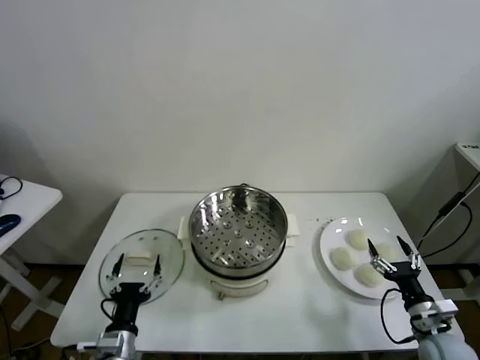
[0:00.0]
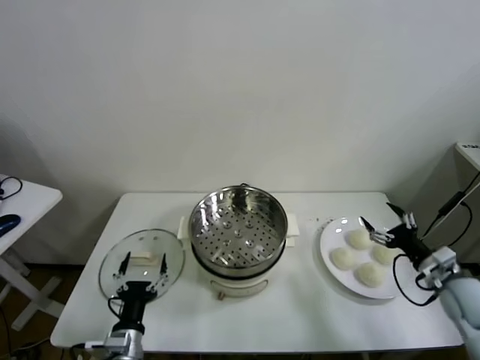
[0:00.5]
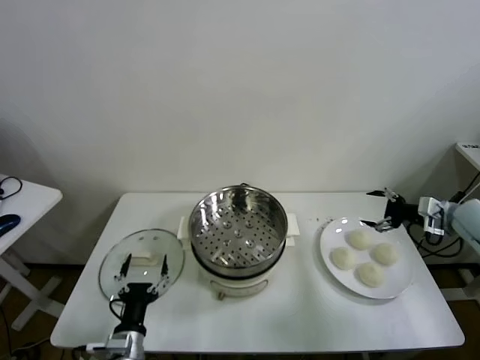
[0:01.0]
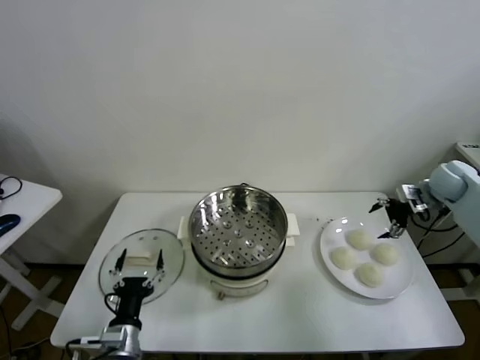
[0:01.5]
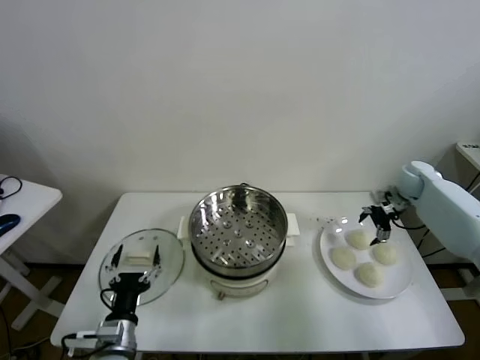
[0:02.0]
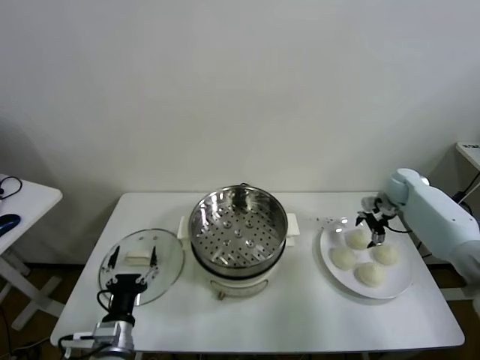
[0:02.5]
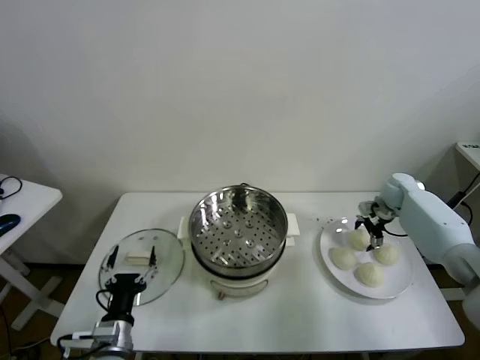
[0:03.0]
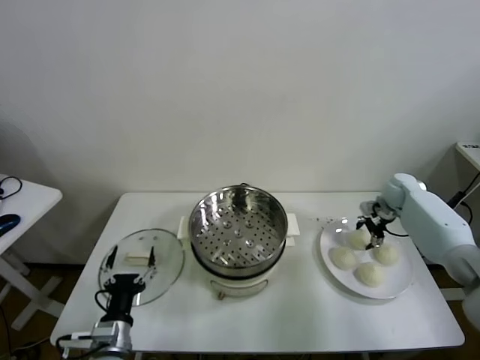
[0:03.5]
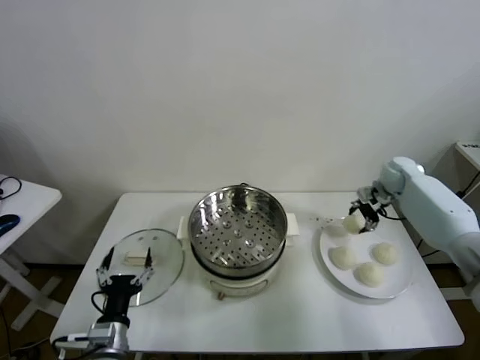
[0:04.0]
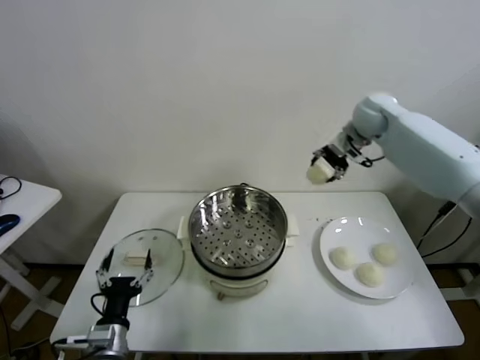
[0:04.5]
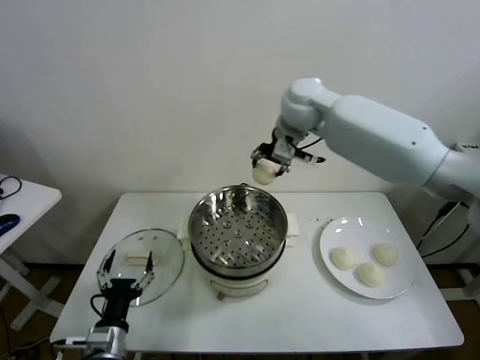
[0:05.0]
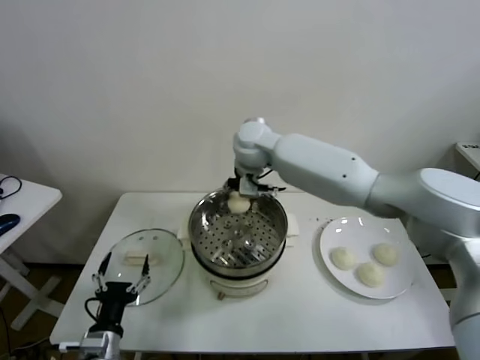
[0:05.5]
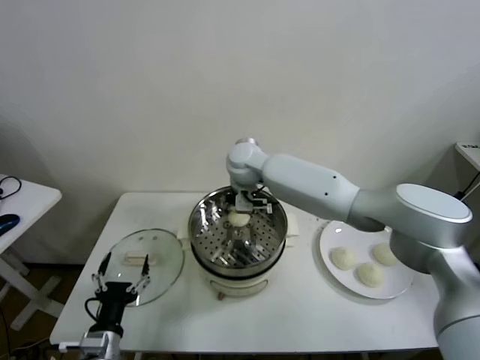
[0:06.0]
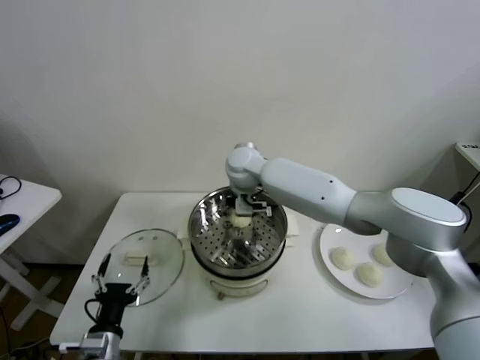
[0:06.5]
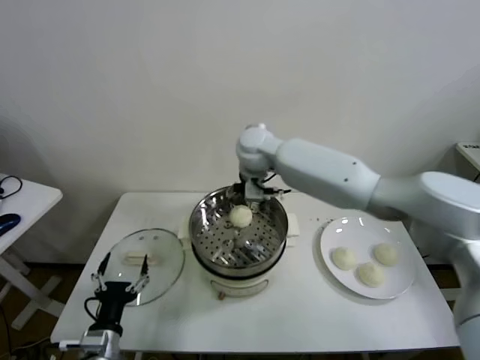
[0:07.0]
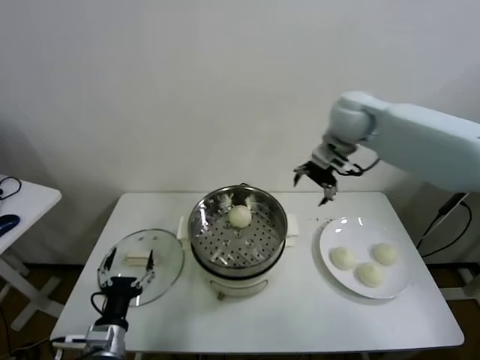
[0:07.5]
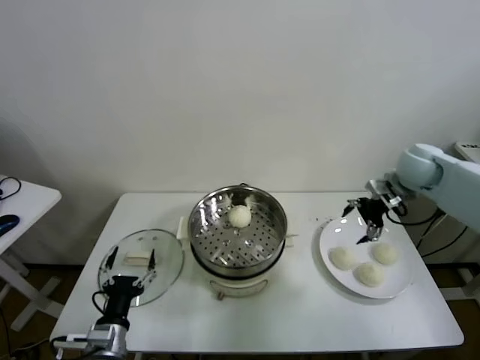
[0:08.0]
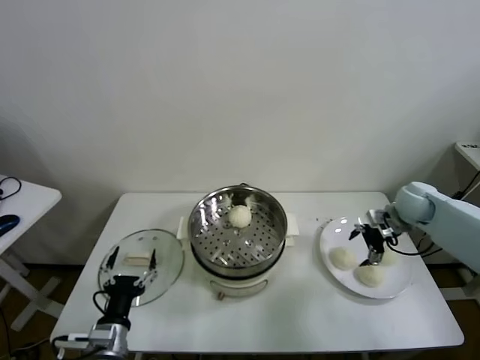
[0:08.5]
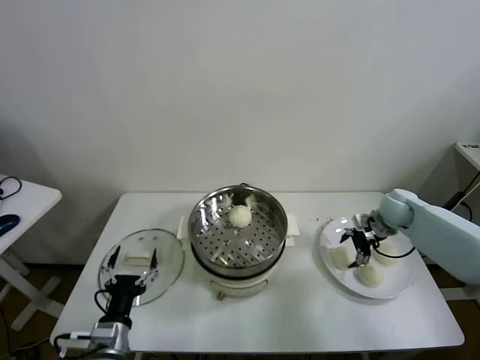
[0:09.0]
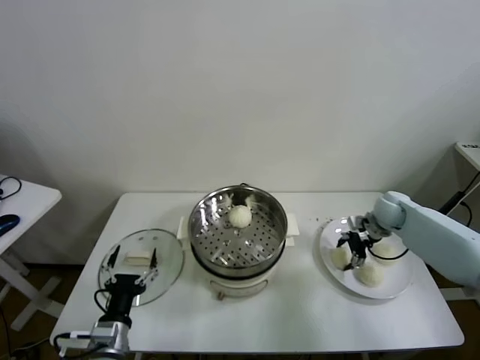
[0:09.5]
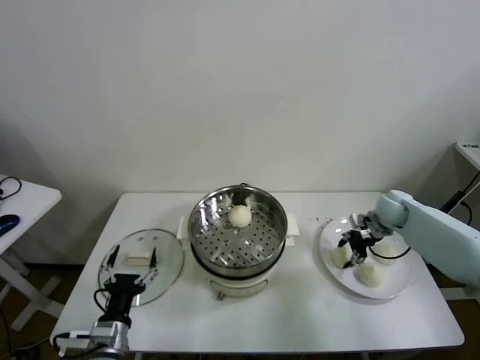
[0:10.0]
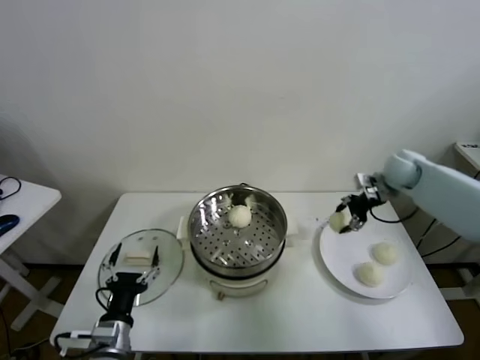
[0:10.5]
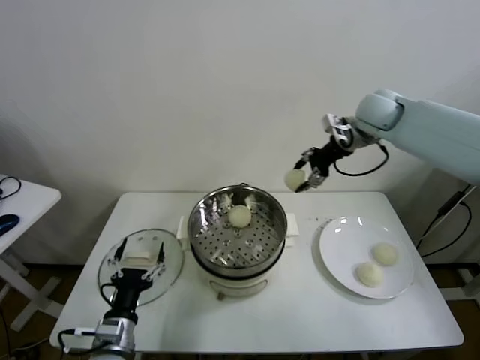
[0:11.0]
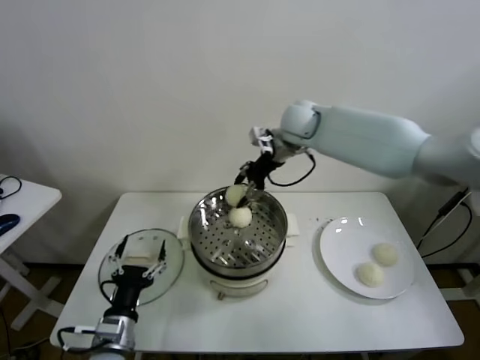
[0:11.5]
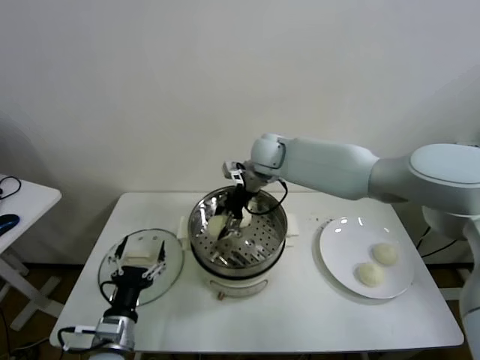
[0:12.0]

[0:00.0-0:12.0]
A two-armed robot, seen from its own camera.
Task of the whole recording: take steamed baozi put them in steamer.
Step, 0:00.0 to 0:03.5: Grasp the baozi in the plate with right gripper.
Step, 0:04.0 to 0:06.5: Place the baozi on the steamer with right gripper.
Step, 0:07.0 to 0:09.0: Grasp the baozi in the plate with right gripper.
0:02.0 to 0:04.0: The right gripper ends up roughly 5 cm from where it was, and closes up.
0:04.0 to 0:06.0: The right gripper is displaced to the left by roughly 40 cm.
0:06.0 to 0:08.0: The right gripper shifts some 40 cm to the right, and opens up.
0:08.0 to 0:10.0: The right gripper goes about 15 cm downward, and closes its fingers.
0:10.0 to 0:12.0: The right gripper goes roughly 35 cm to the left.

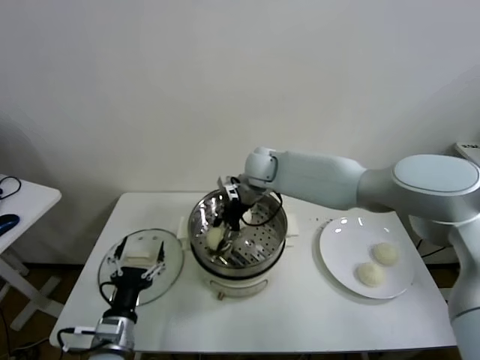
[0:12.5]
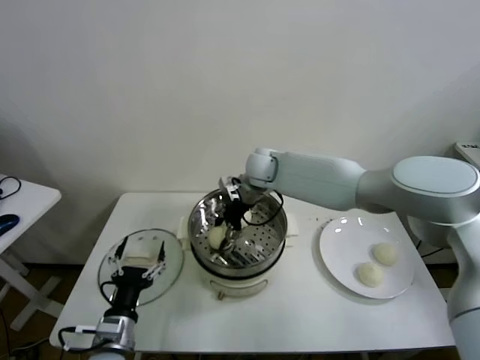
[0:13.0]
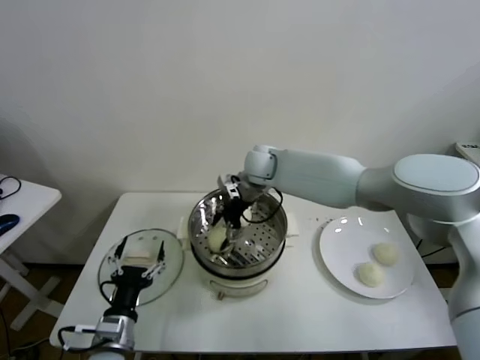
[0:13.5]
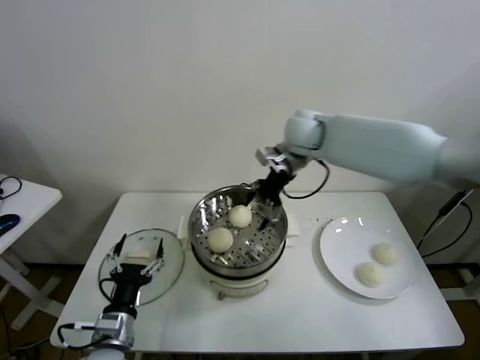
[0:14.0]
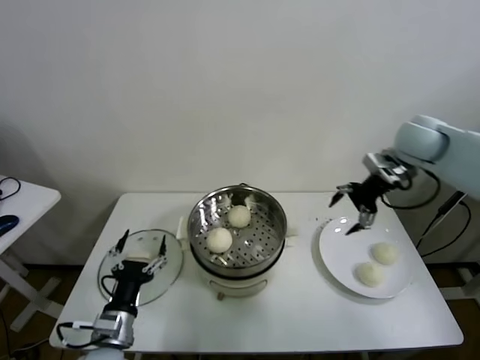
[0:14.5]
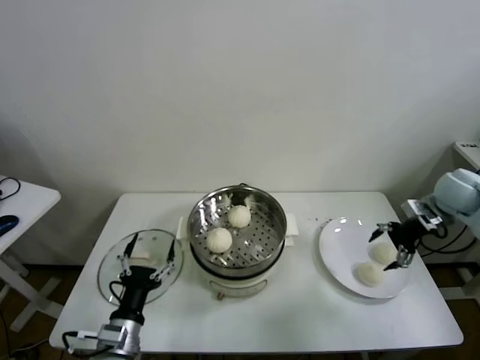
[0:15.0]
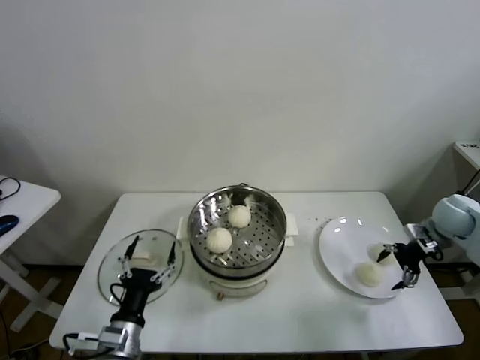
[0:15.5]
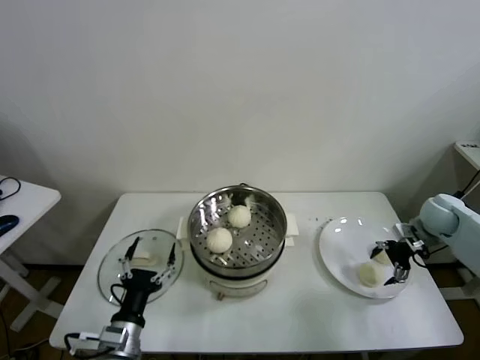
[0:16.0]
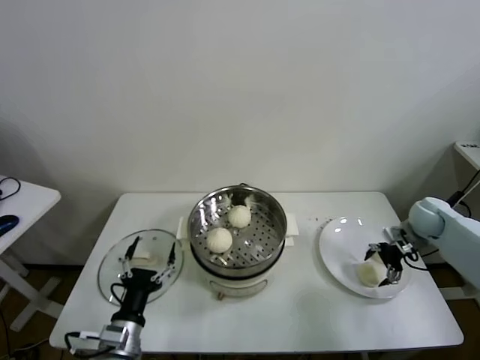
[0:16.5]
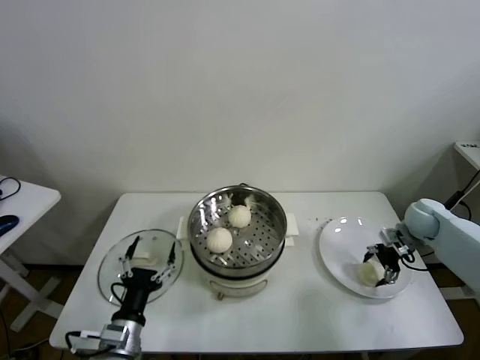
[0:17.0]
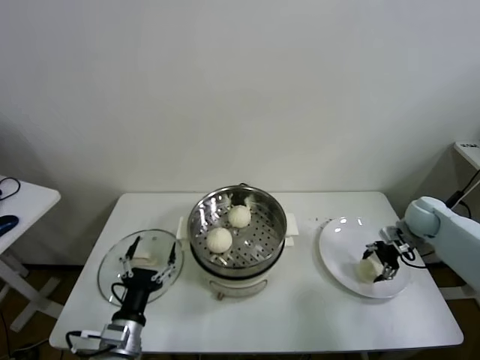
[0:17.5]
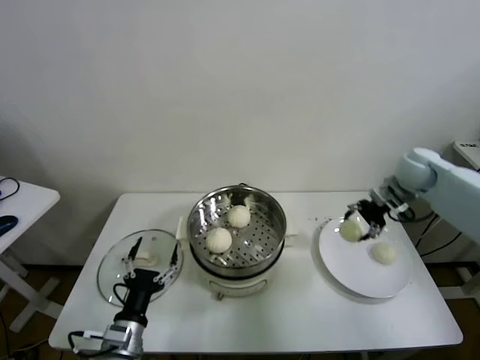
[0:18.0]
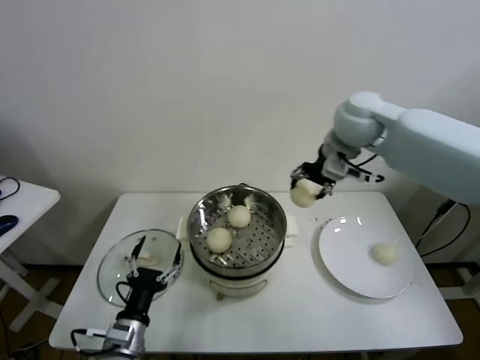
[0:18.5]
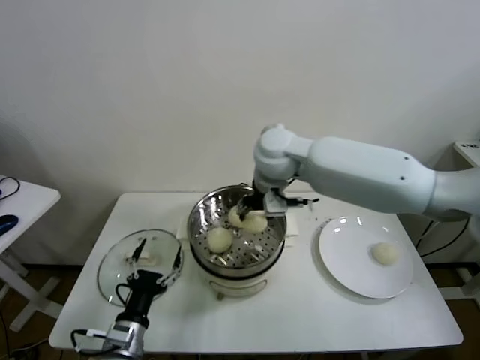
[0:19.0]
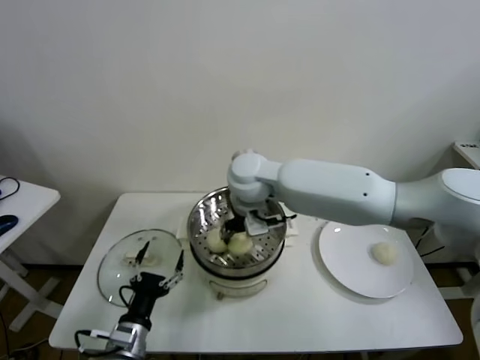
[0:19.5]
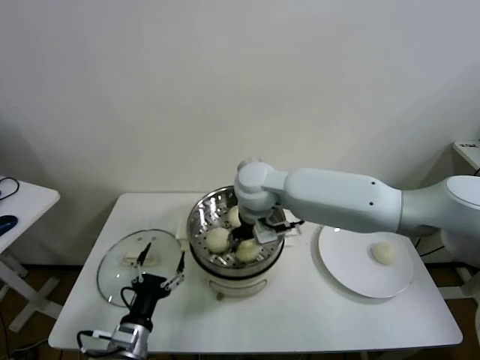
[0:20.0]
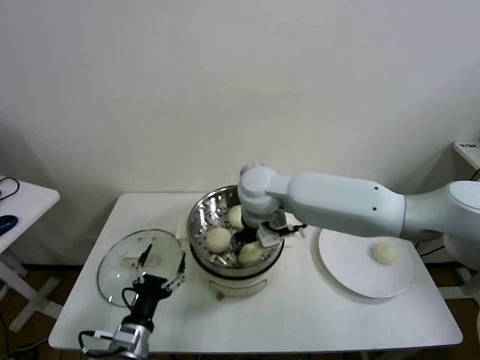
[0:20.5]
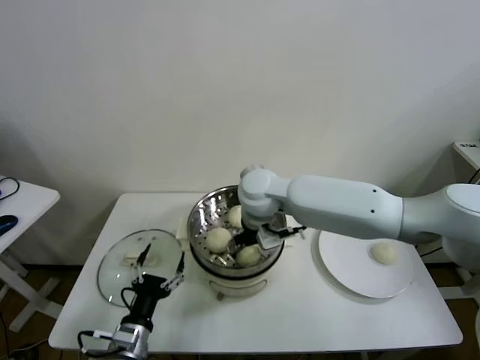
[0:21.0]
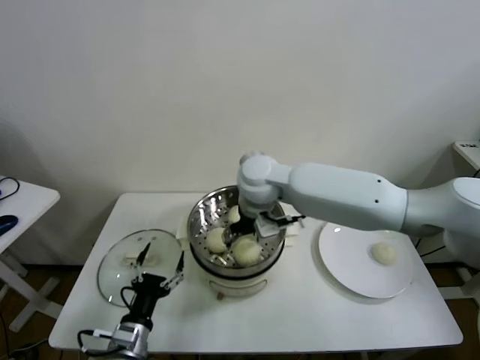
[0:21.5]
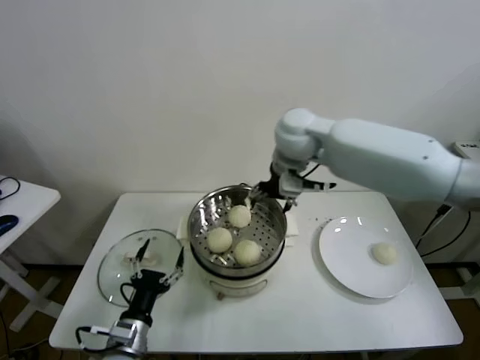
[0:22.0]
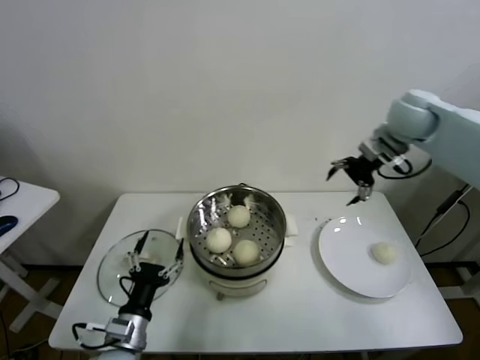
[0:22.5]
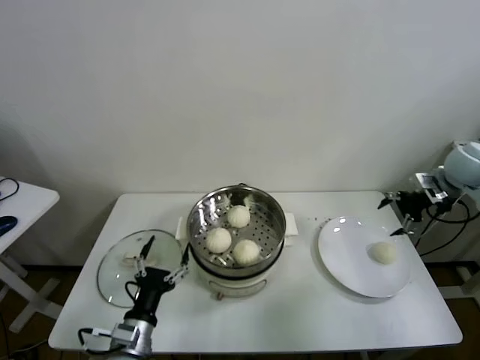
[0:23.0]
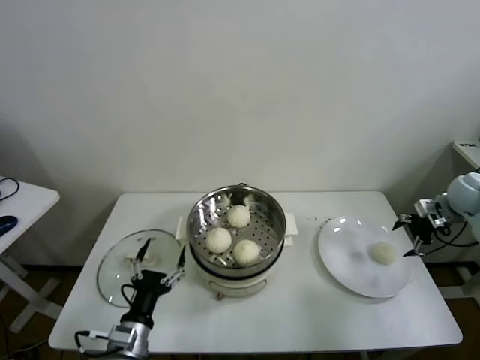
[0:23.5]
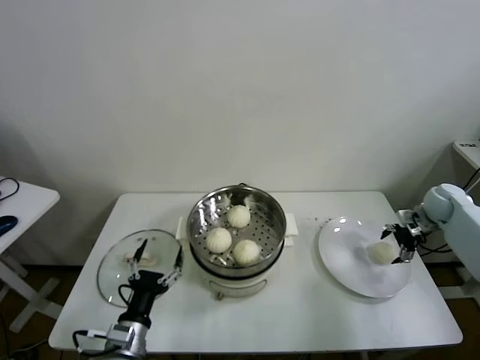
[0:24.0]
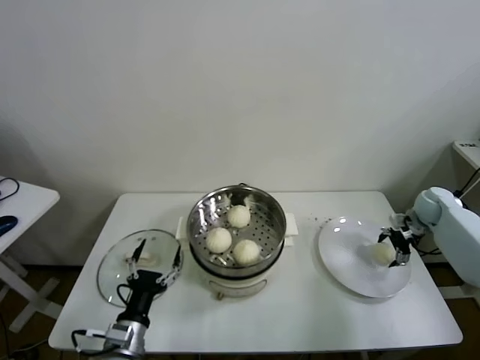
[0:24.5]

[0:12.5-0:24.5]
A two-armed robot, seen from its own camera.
Task of the whole recording: take steamed baozi put them in steamer.
Step, 0:13.5 to 0:16.5: Grasp the baozi in the plate with right gripper.
Step, 0:17.5 to 0:21.0: Place the baozi on the steamer with right gripper.
0:12.5 to 0:14.5: The right gripper is displaced to the right by roughly 35 cm, and opens.
0:14.5 to 0:16.5: The right gripper moves downward and to the right, approximately 20 cm.
0:16.5 to 0:18.5: The right gripper goes some 40 cm to the left and upward, and closes its fingers.
0:18.5 to 0:20.5: The right gripper shifts roughly 20 cm to the left and downward.
0:20.5 to 0:22.5: The right gripper goes some 35 cm to the right, and opens up.
0:22.5 to 0:24.5: The right gripper is displaced downward and to the right by some 30 cm.

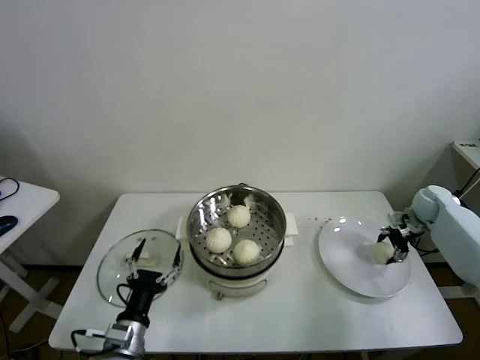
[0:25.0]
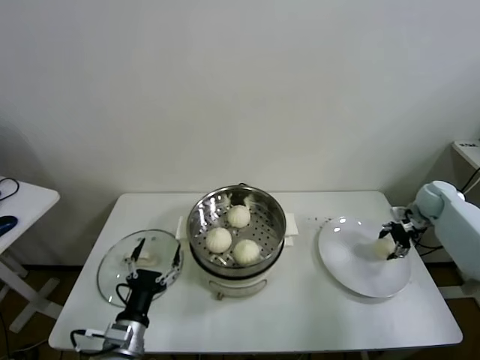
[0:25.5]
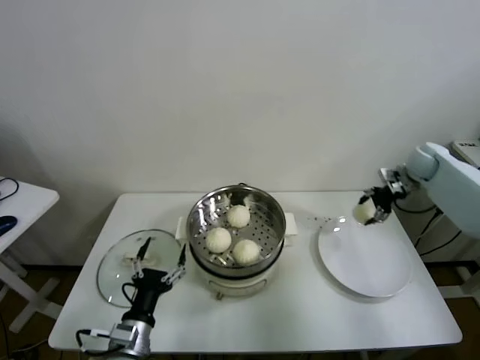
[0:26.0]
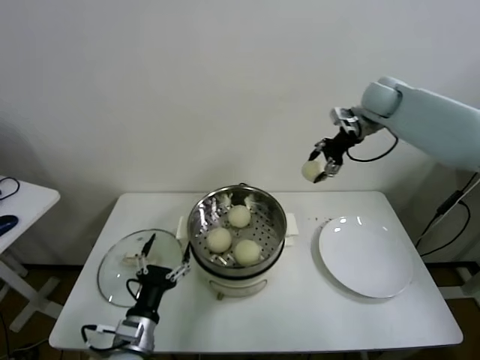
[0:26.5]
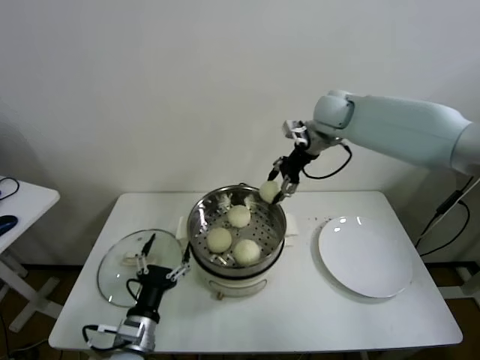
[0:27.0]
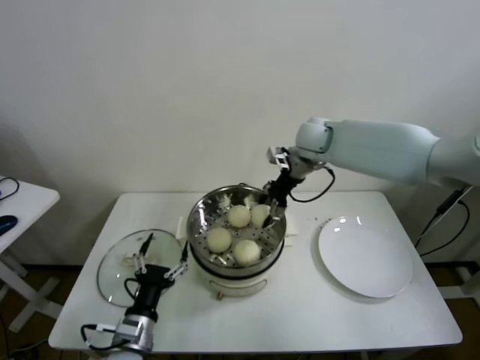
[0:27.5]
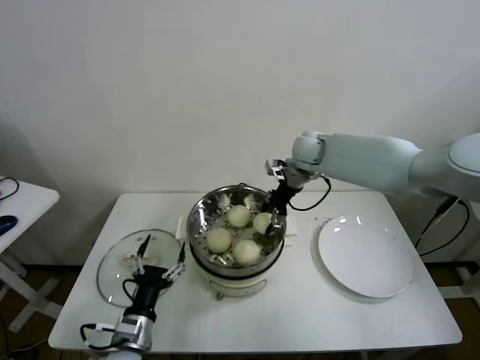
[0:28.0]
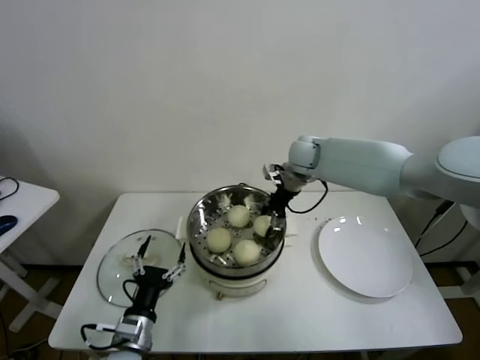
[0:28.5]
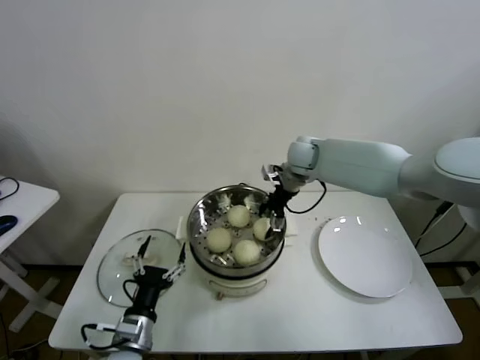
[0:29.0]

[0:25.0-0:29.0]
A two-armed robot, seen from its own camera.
Task of the whole recording: take steamed baozi put them in steamer.
Step, 0:25.0 to 0:29.0: Place the baozi on the steamer with right gripper.
0:25.0 to 0:27.0: The right gripper shifts roughly 40 cm to the left and upward.
0:27.0 to 0:29.0: The right gripper is displaced downward by about 10 cm, and opens its fingers.
